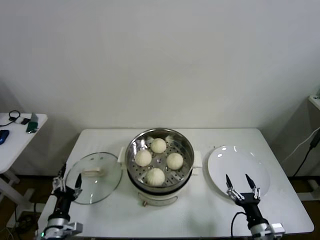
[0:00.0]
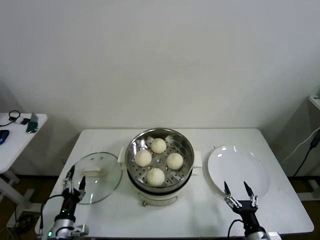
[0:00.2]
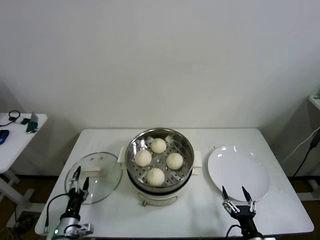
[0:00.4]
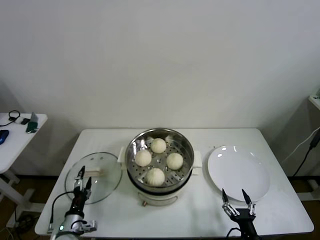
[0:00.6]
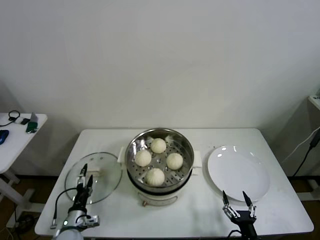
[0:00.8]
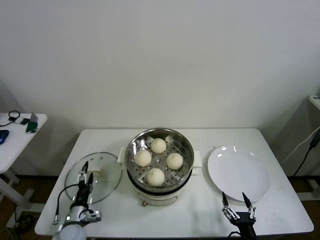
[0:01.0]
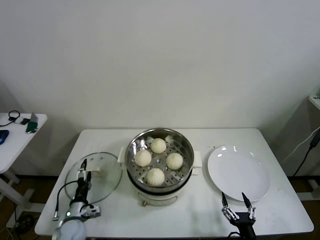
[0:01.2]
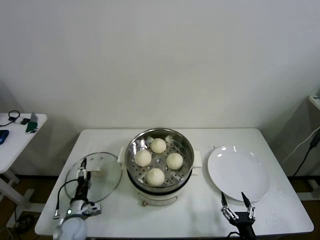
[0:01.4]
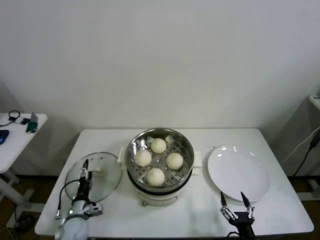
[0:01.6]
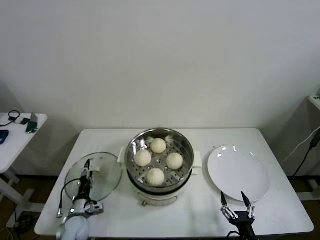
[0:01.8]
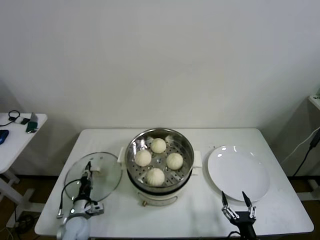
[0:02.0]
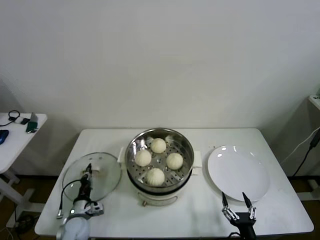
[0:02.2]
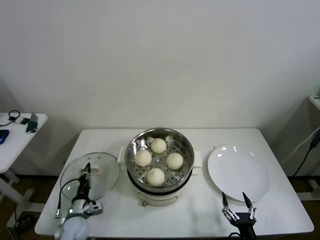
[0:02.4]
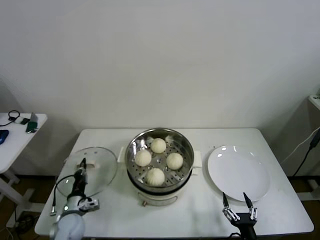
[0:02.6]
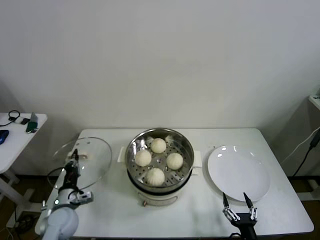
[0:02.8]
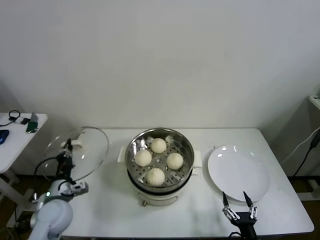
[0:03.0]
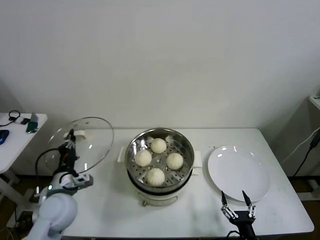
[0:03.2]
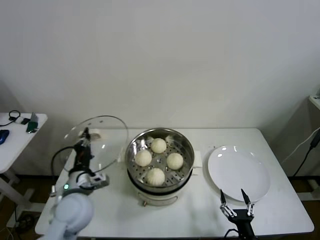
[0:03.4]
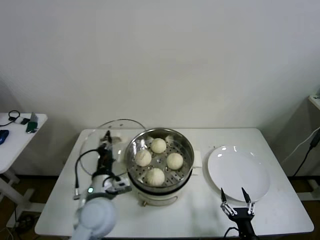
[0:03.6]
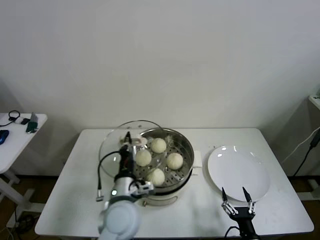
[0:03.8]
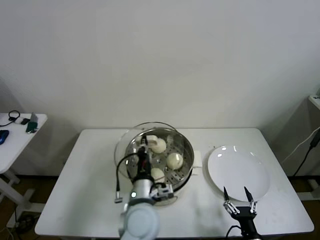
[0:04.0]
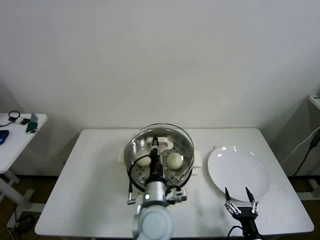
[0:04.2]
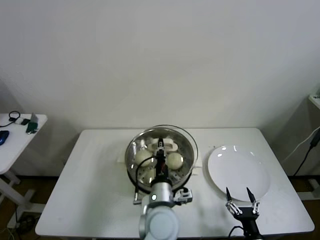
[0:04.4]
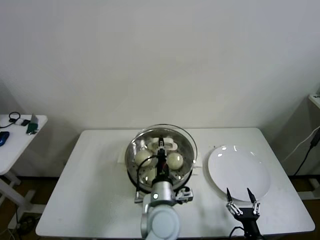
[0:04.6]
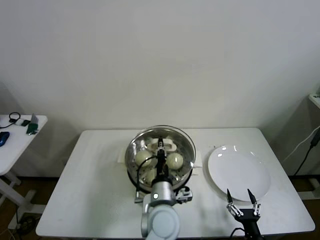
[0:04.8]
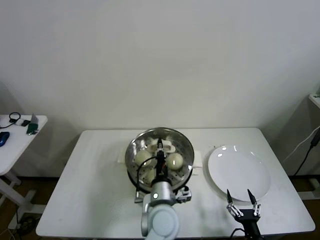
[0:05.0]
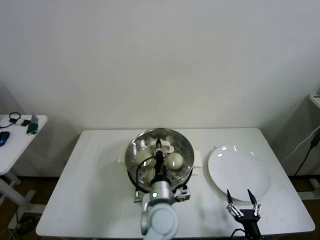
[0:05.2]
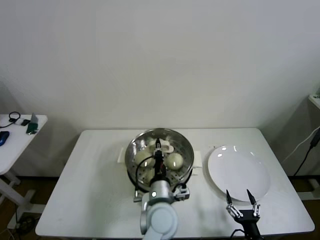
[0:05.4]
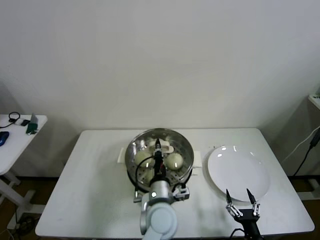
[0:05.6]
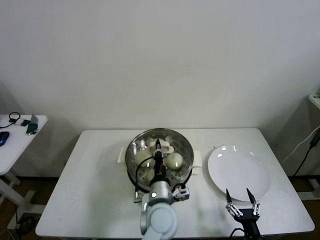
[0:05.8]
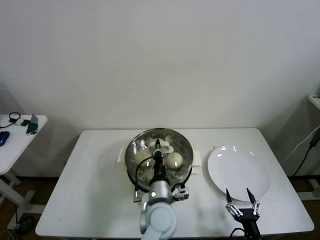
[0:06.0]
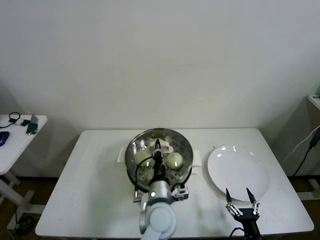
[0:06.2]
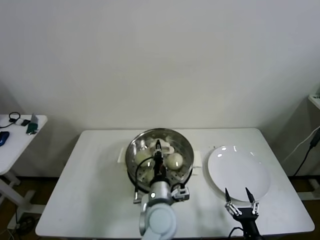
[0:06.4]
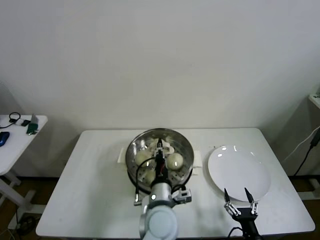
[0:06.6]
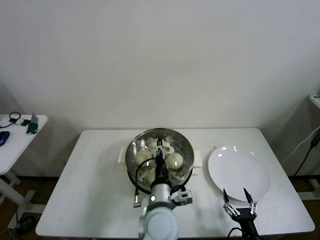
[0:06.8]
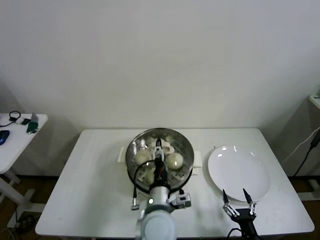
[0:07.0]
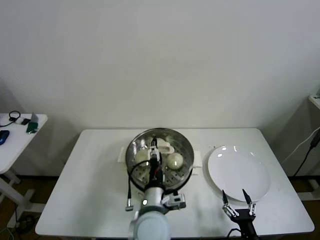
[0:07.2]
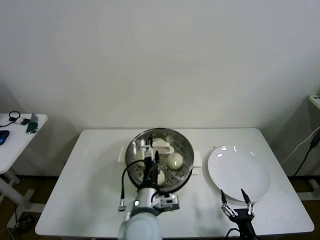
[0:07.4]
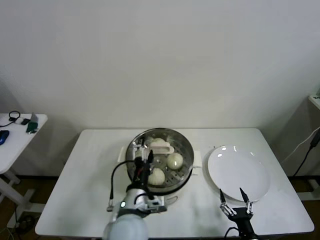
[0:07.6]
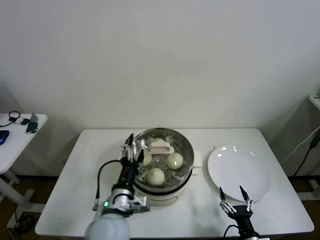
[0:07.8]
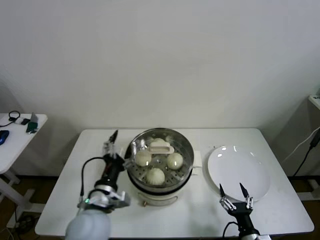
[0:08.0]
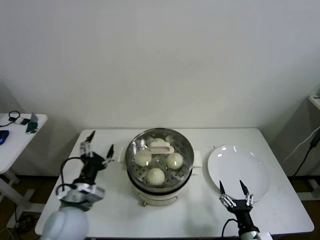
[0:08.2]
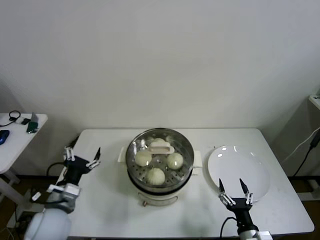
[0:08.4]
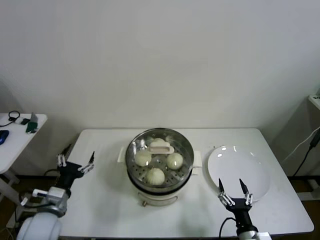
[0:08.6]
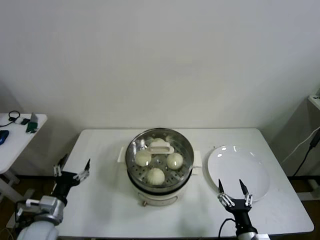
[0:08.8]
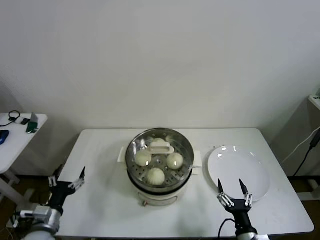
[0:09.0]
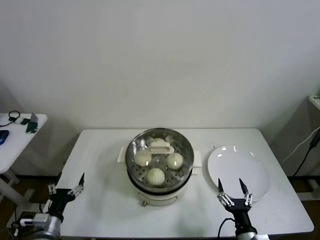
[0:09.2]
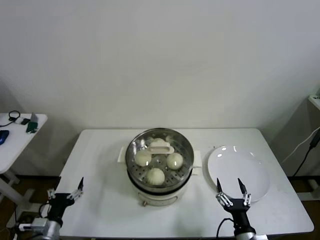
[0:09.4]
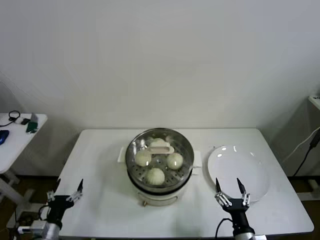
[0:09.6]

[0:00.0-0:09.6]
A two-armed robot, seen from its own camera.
Step, 0:00.0 to 0:02.2: Grasp the pot lid with left gripper.
Step, 0:02.4 to 0:06.6: Place the pot lid on the steamer with left gripper.
0:00.0 to 0:01.6: The right gripper goes roughly 5 cm backward. Meanwhile the left gripper is displaced forward and downward by about 10 cm.
0:01.6 to 0:03.2: The left gripper shifts about 20 cm upward, and closes up.
0:03.2 to 0:04.8: The left gripper goes some 30 cm to the right.
0:04.8 to 0:06.4: The grippers stay close to where they were, moving slightly.
0:06.4 to 0:08.0: The left gripper is displaced to the left by some 15 cm, and opens its fingers.
0:08.0 to 0:09.6: The left gripper goes approximately 25 cm to the left and downward.

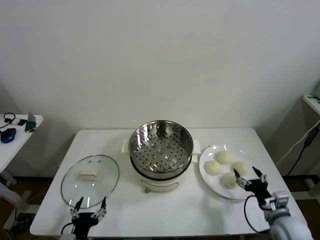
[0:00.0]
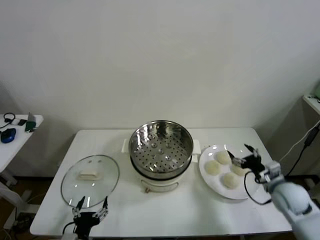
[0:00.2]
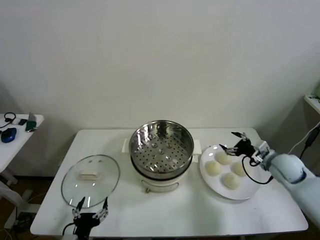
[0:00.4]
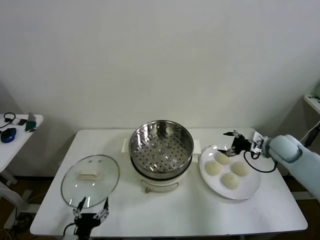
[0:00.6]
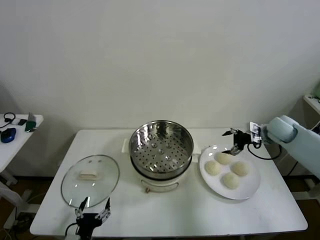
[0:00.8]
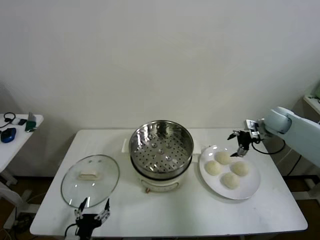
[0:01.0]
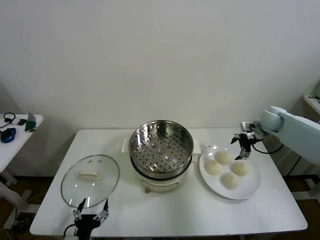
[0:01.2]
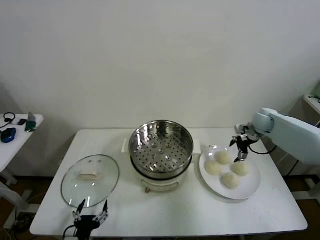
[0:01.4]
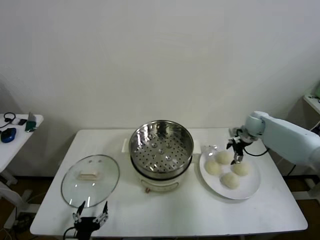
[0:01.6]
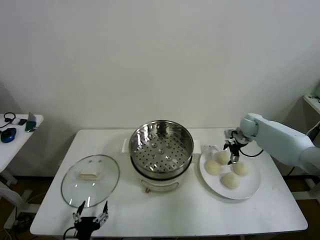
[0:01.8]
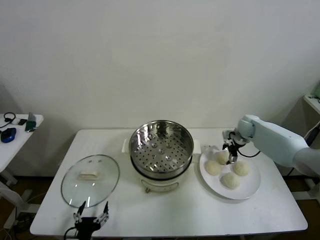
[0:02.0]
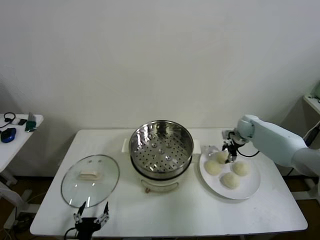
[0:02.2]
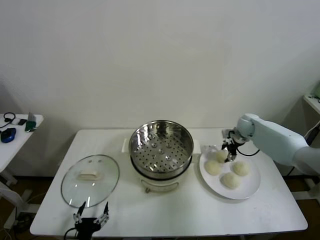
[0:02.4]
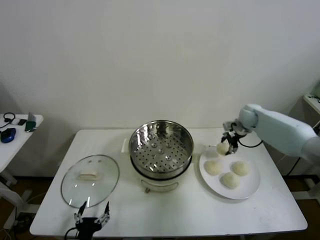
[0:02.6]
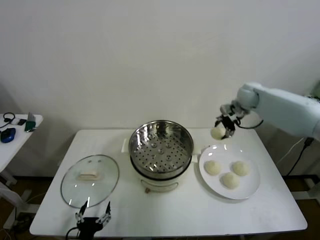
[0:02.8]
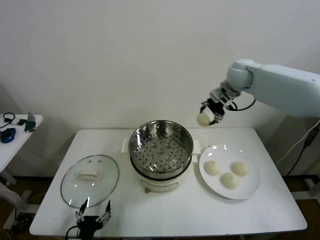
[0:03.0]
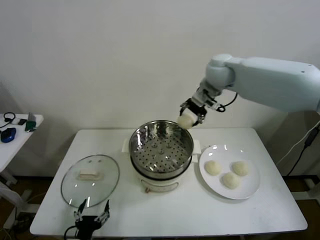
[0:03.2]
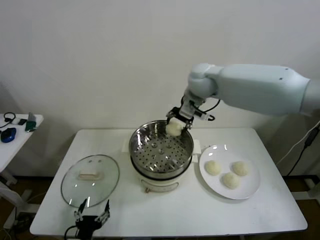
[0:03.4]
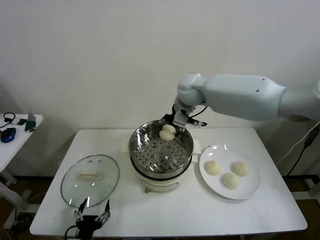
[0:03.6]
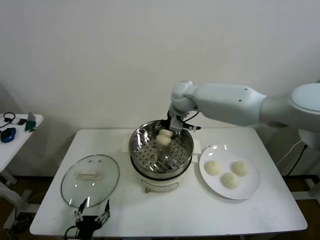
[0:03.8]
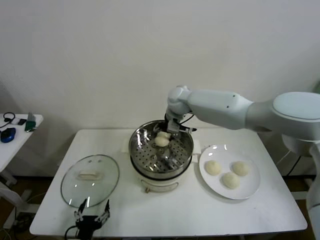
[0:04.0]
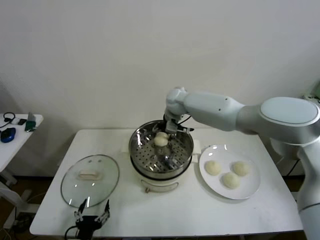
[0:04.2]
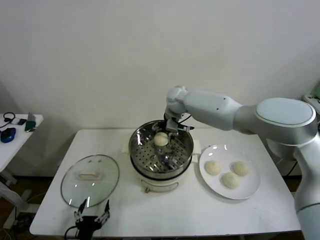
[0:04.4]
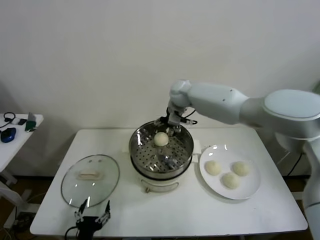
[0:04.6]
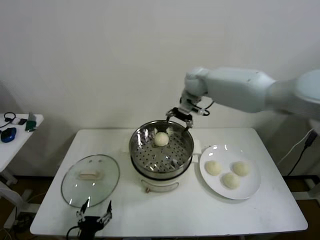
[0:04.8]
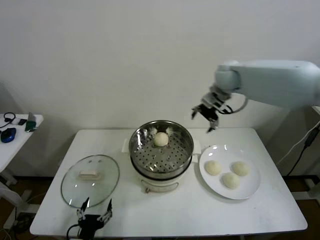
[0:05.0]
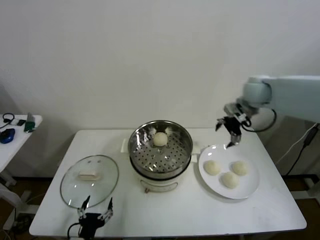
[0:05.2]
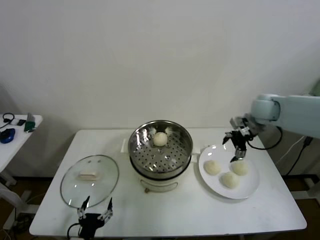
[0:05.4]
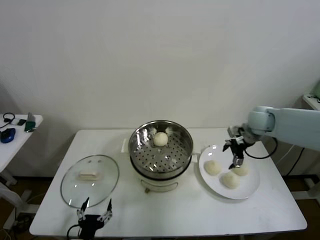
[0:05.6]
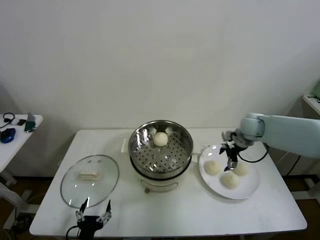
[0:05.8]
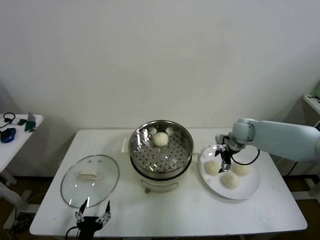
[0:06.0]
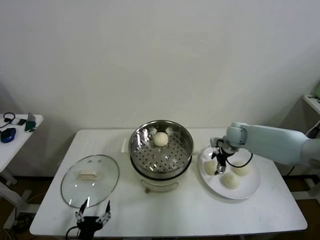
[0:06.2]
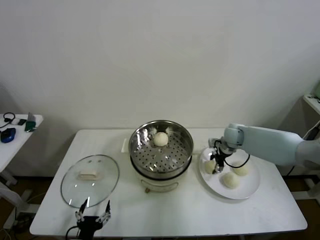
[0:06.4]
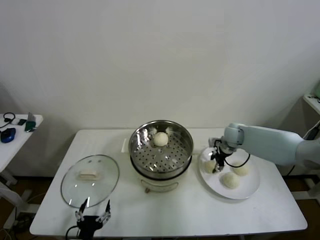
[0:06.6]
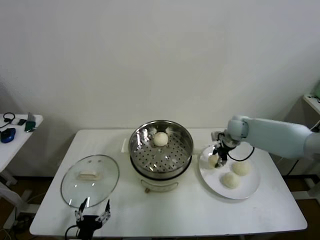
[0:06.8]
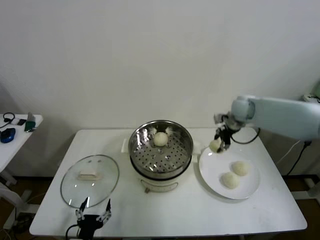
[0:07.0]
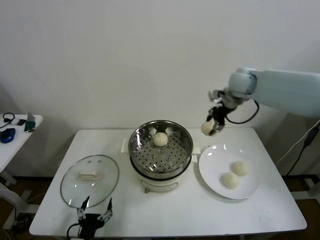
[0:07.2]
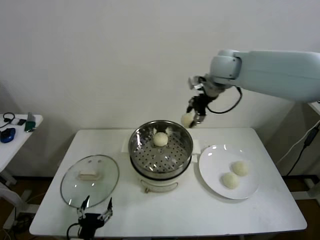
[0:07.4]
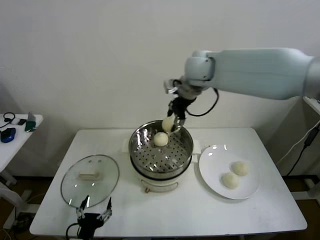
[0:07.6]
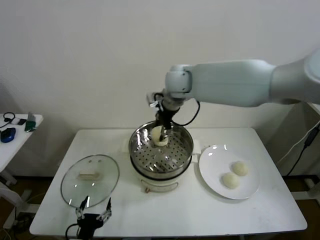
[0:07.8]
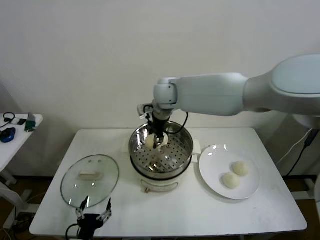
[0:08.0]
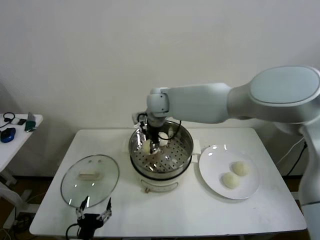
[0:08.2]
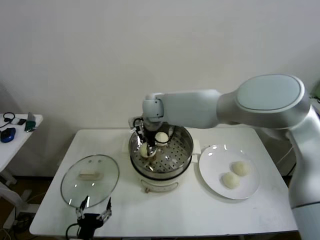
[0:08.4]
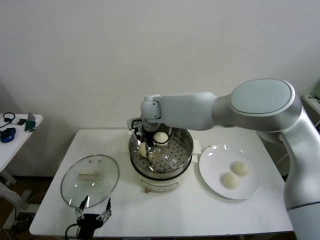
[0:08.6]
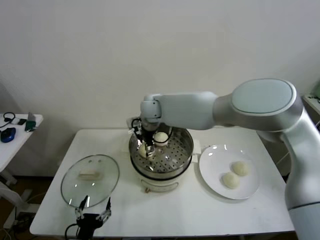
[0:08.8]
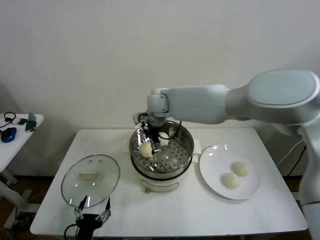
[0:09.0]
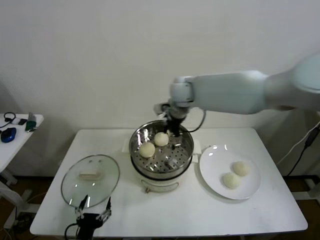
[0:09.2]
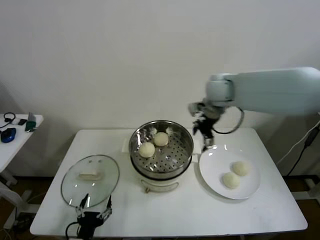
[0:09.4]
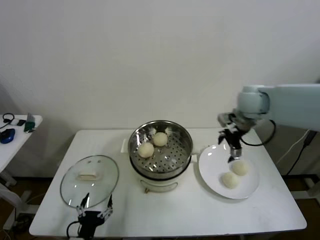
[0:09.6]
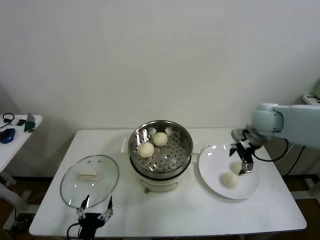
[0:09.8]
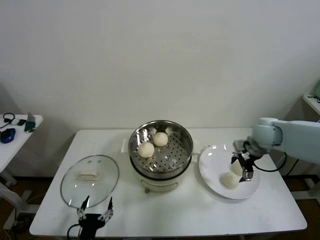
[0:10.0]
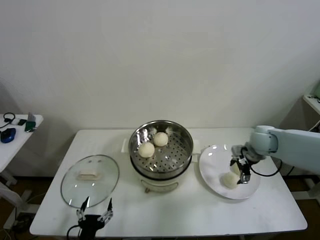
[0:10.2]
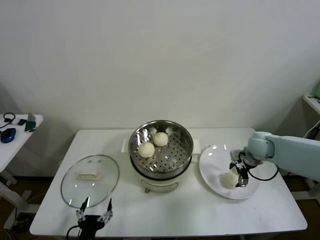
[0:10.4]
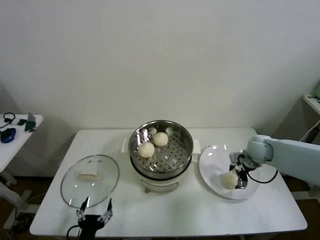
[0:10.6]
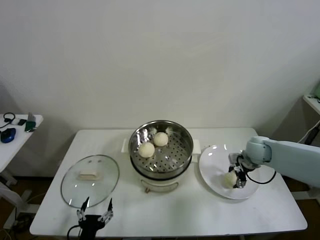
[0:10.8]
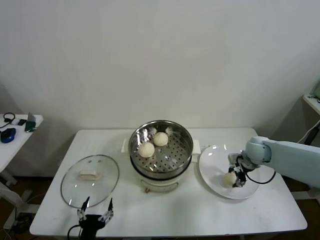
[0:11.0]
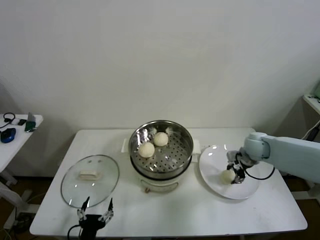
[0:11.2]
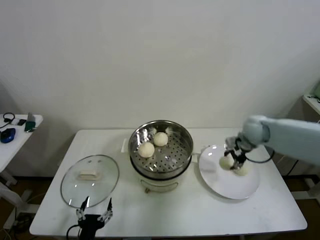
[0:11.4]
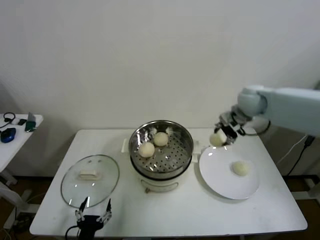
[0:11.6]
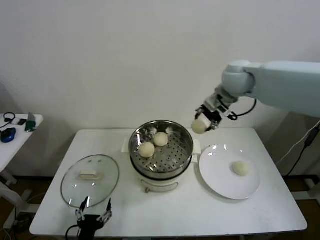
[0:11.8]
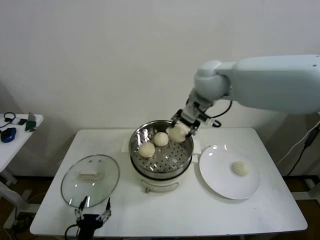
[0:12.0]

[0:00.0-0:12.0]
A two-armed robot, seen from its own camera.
Step, 0:00.0 to 0:02.2: Grasp the baozi in the plate with right gripper.
Step, 0:02.4 to 0:04.2: Place the baozi on the steamer with right gripper.
Step, 0:04.4 to 0:06.6: Grasp the baozi in the plate with right gripper.
Step, 0:06.8 to 0:08.6: Place the baozi on the steamer with right gripper.
Step, 0:08.8 to 0:11.0: Grasp the baozi in the plate with right gripper.
0:01.6 to 0:03.0: The right gripper shifts some 25 cm upward and to the left, and closes its fingers.
0:03.0 to 0:04.4: The right gripper goes about 25 cm to the left and downward, and opens its fingers.
0:04.4 to 0:06.0: The right gripper travels to the right by about 25 cm.
0:06.0 to 0:07.6: The right gripper moves upward and to the left, about 30 cm, and closes its fingers.
0:07.6 to 0:09.0: The right gripper travels to the left and downward by some 20 cm, and opens its fingers.
0:09.0 to 0:10.4: The right gripper travels to the right by about 35 cm.
0:10.4 to 0:12.0: The right gripper is displaced upward and to the left by about 35 cm, and closes its fingers.
